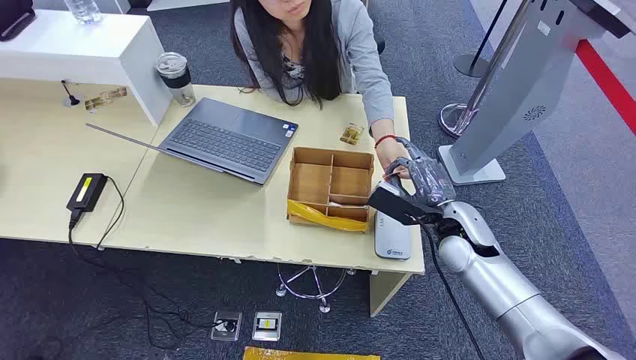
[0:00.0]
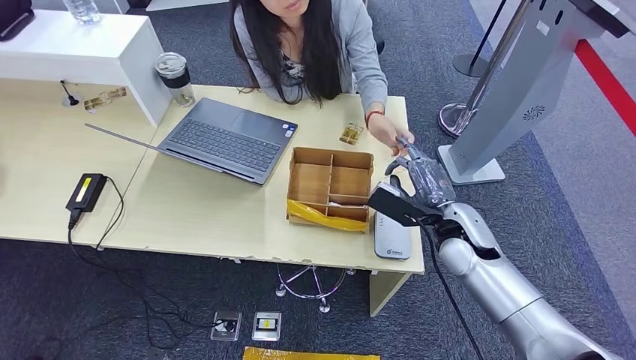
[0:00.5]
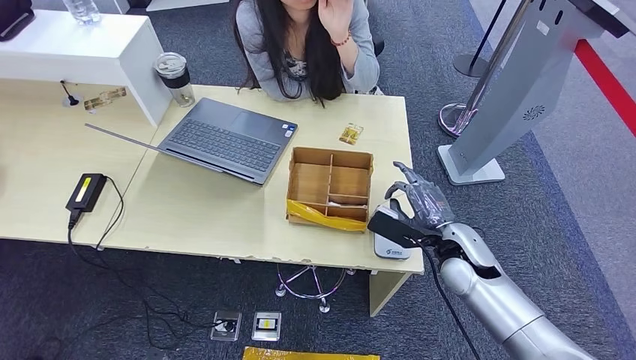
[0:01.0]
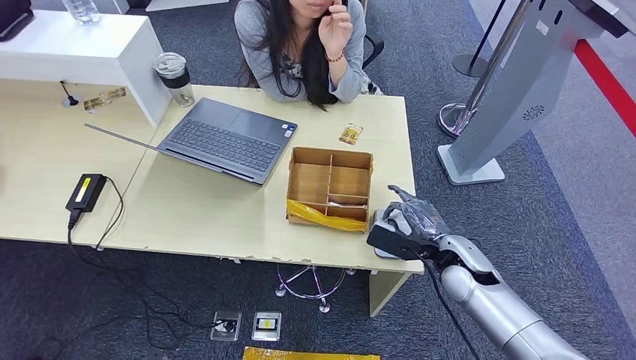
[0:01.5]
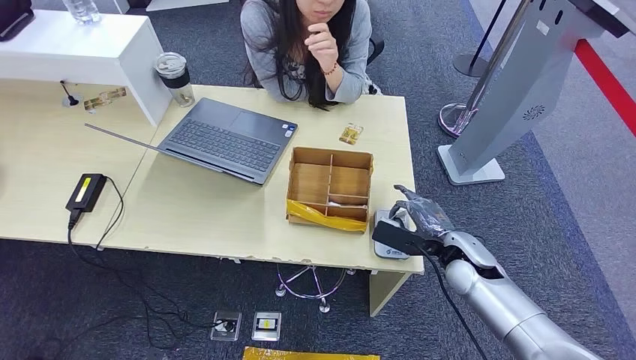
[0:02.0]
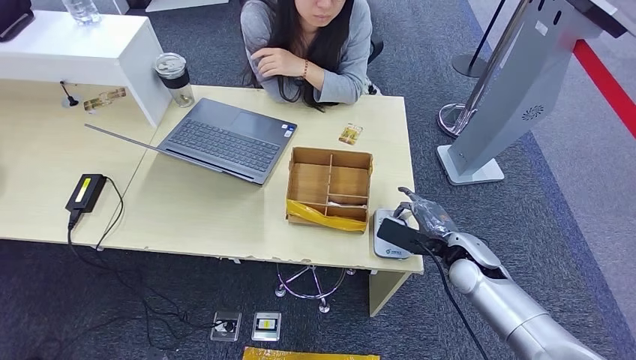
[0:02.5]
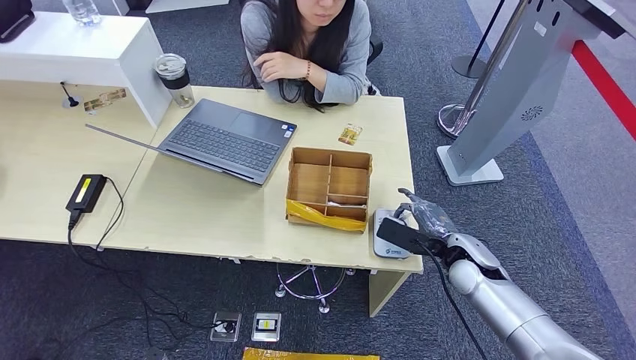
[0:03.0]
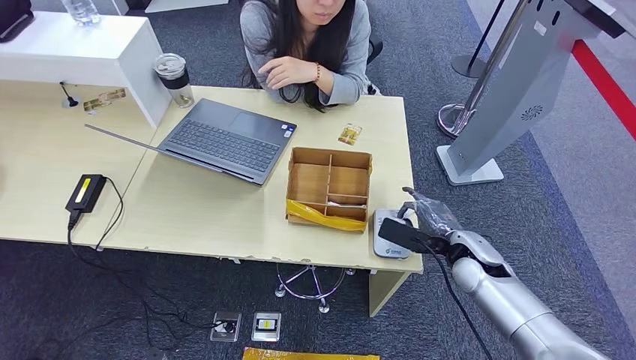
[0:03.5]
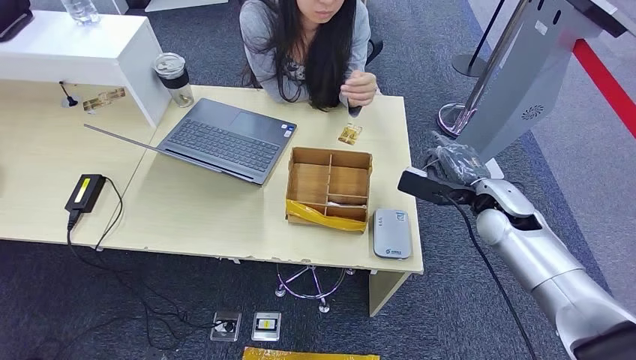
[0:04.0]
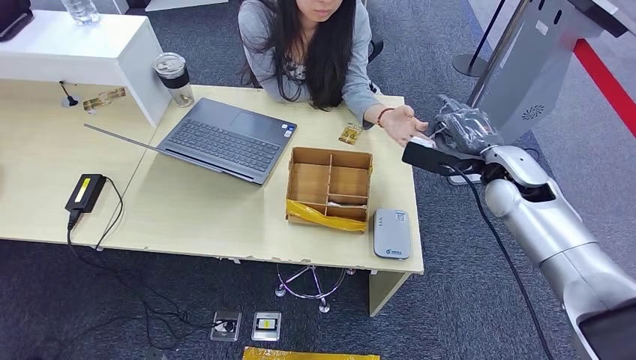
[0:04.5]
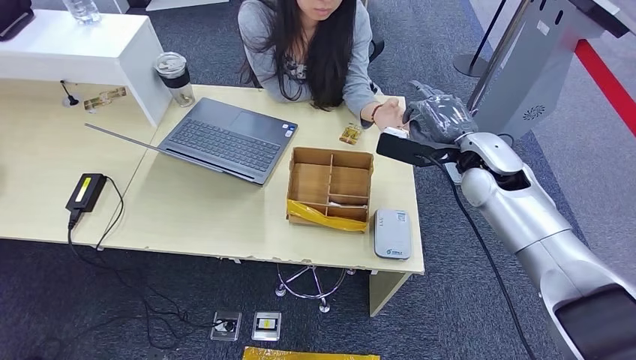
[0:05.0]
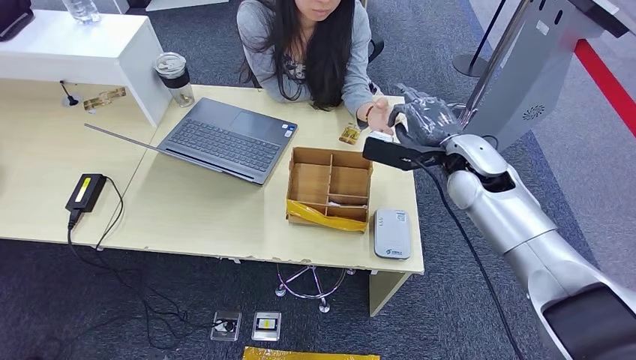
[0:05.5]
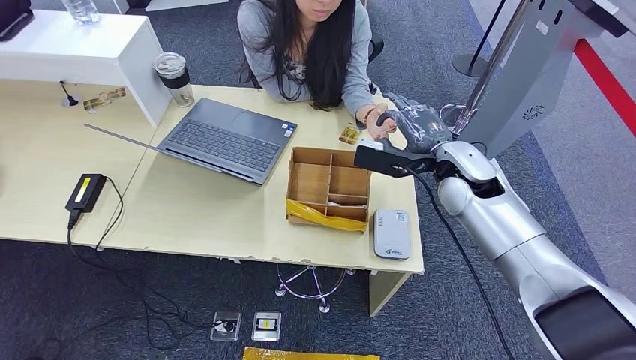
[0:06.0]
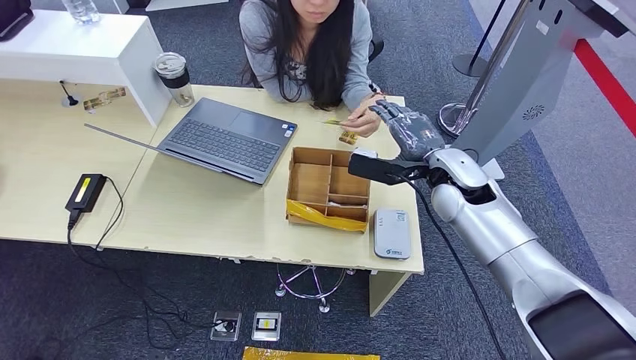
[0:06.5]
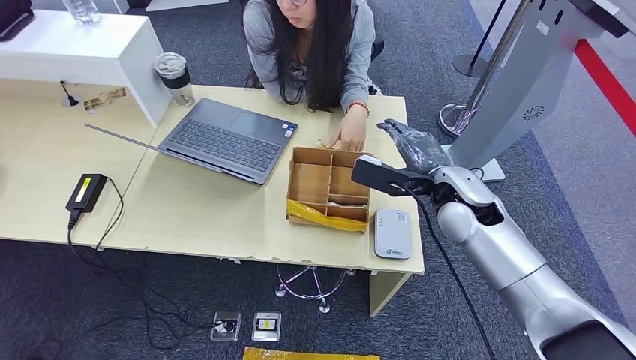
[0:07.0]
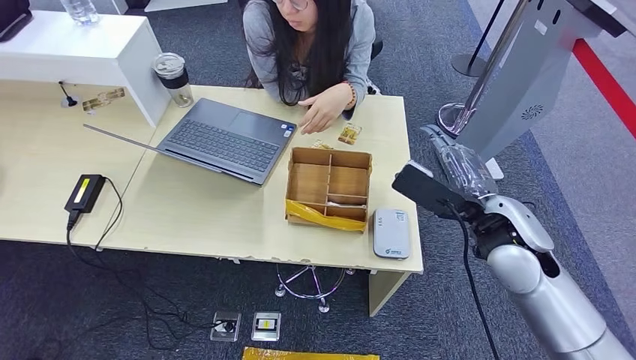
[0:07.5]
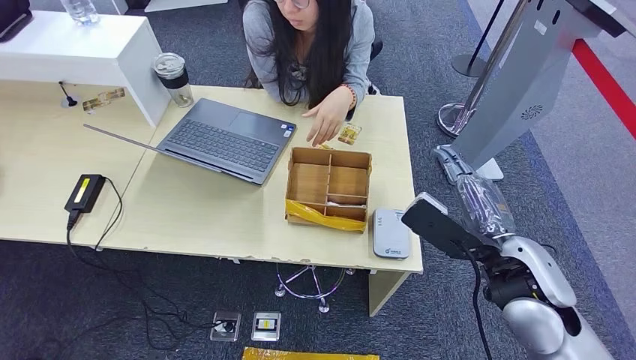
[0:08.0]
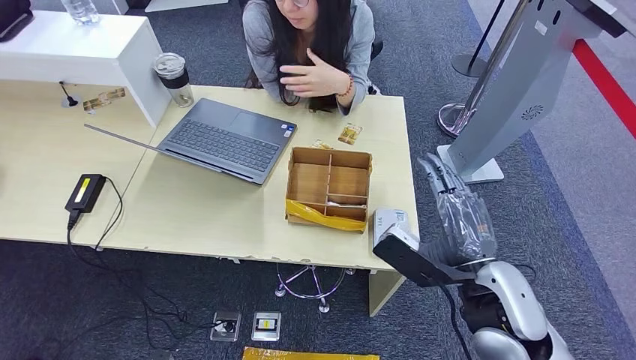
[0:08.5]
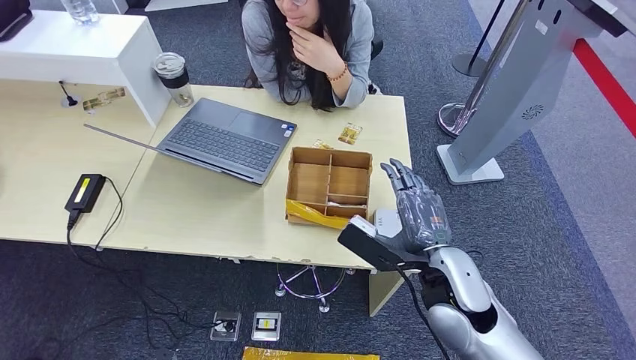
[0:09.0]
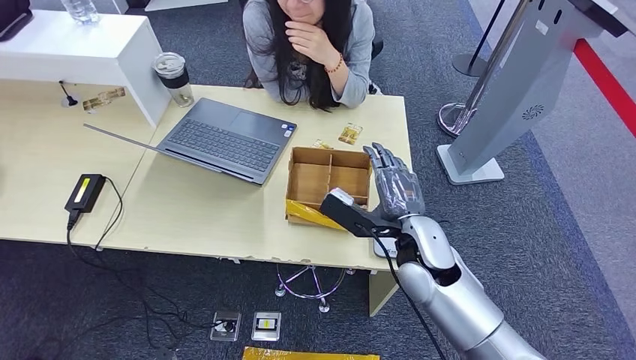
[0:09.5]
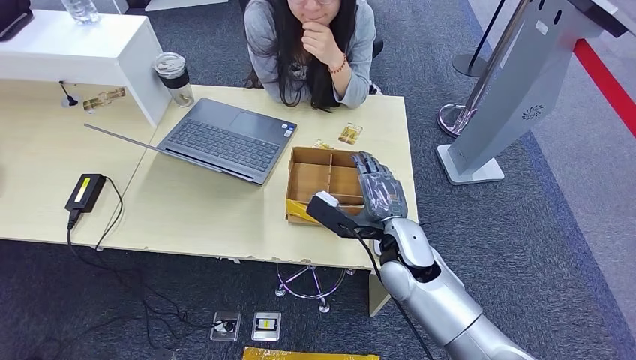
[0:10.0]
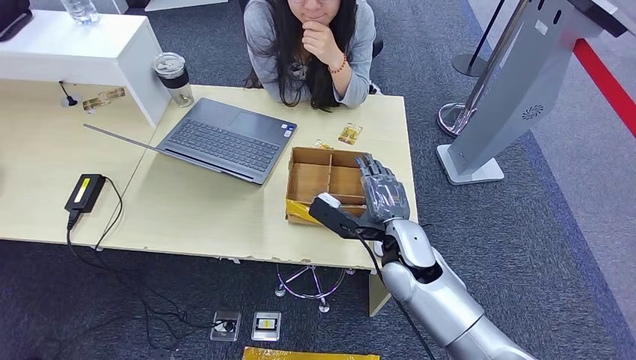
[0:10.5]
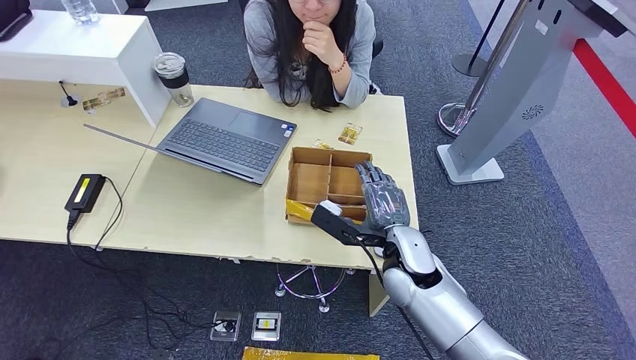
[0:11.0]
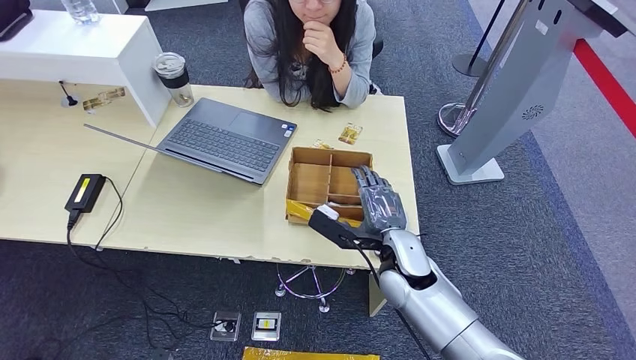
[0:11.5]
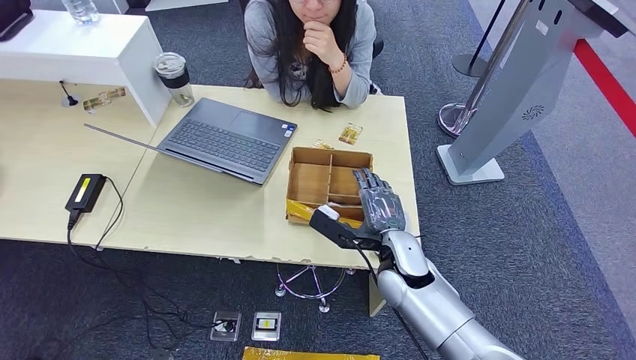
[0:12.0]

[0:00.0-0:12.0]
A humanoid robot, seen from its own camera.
Step, 0.0 to 0.5 s: Take the ID card from the person's hand.
Step, 1.5 to 3.0 s: Place the ID card on the card reader.
Step, 4.0 to 6.0 s: Hand the ID card to the person.
2.0 to 4.0 s: The right hand shifts about 10 cm upward and forward.
4.0 to 6.0 s: The right hand goes some 10 cm to the left and upward.
6.0 to 8.0 s: The right hand moves backward, roughly 15 cm.
8.0 to 10.0 s: The right hand shifts roughly 20 cm to the left, downward and forward.
10.0 to 12.0 s: The hands stay close to where they were, moving slightly.

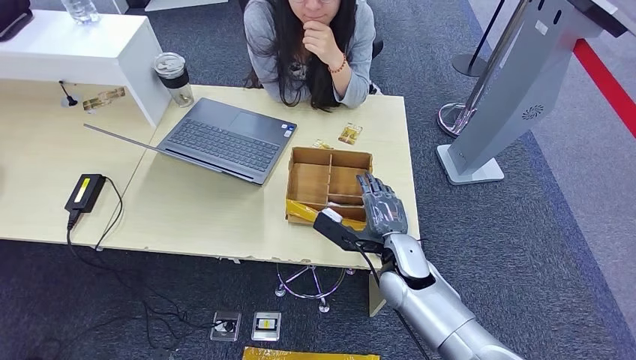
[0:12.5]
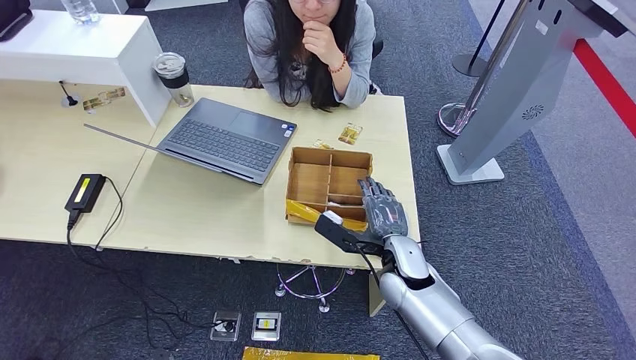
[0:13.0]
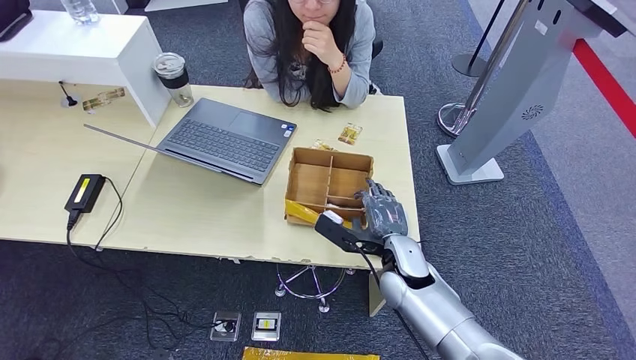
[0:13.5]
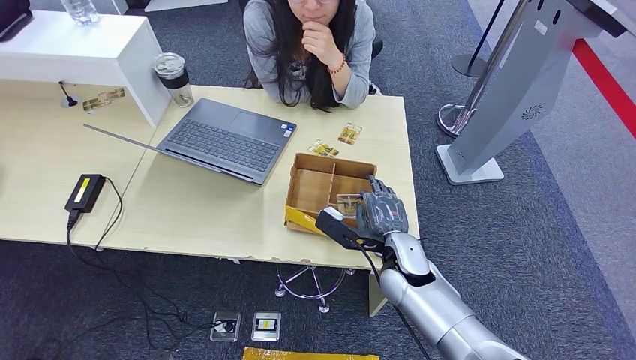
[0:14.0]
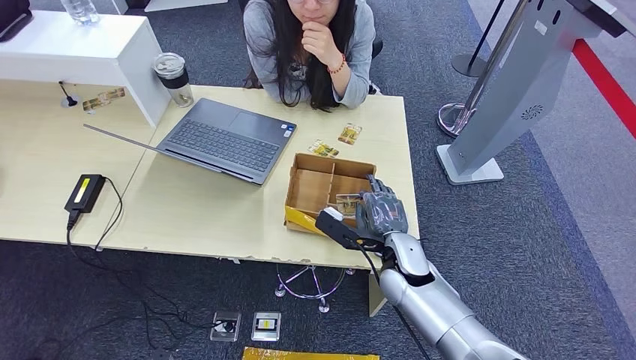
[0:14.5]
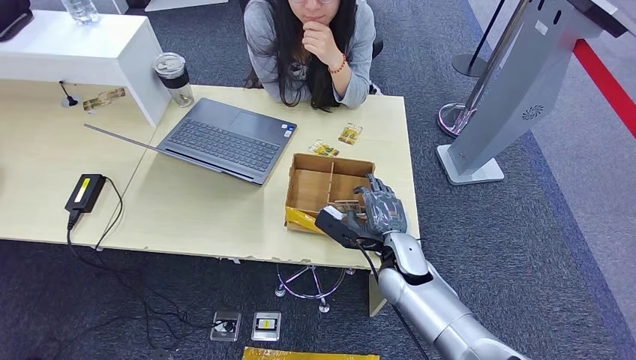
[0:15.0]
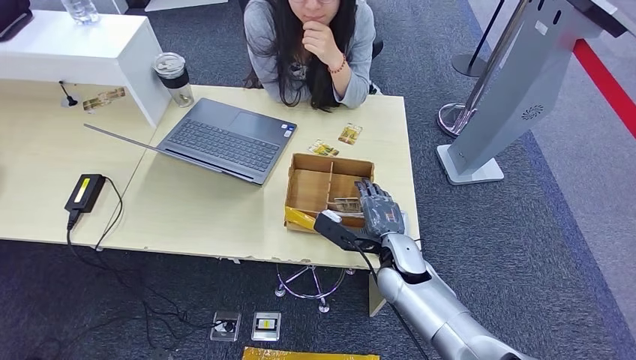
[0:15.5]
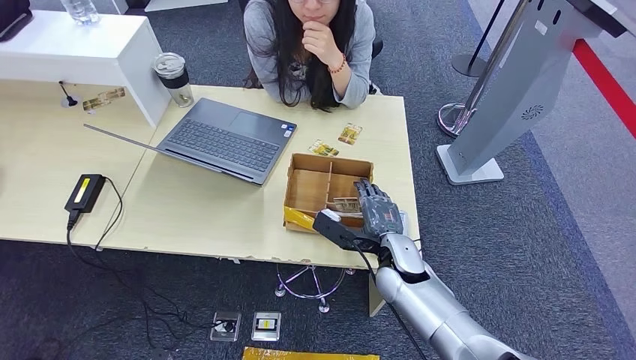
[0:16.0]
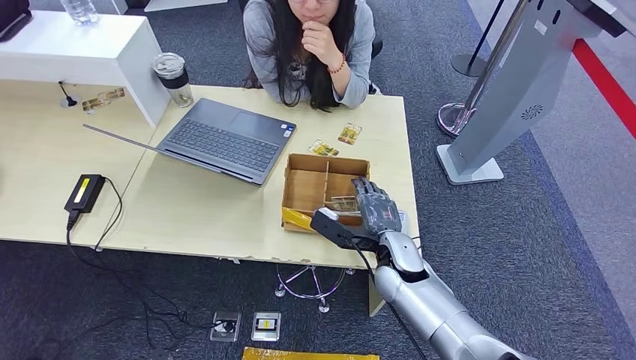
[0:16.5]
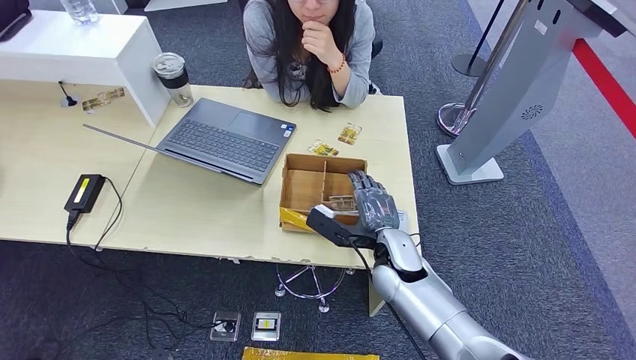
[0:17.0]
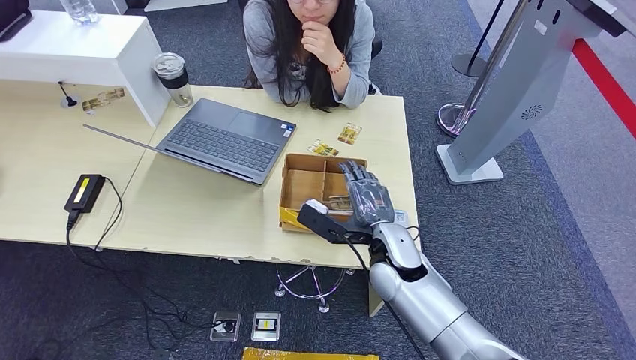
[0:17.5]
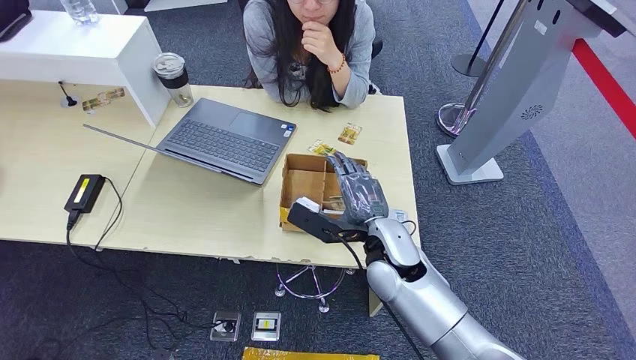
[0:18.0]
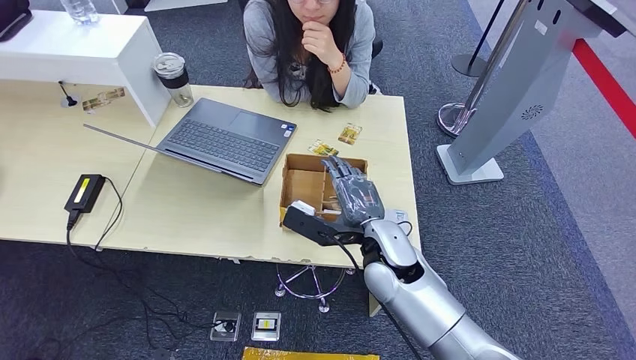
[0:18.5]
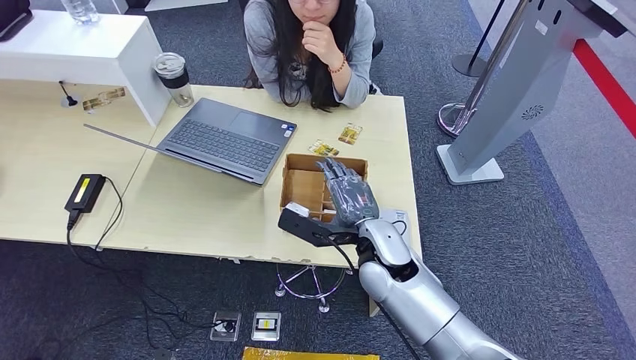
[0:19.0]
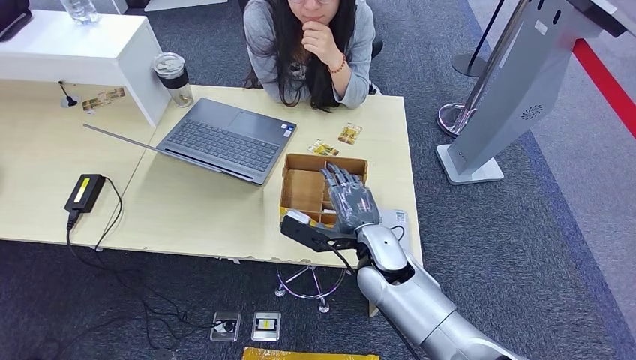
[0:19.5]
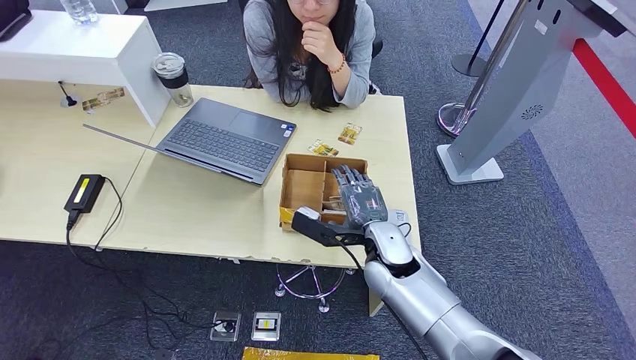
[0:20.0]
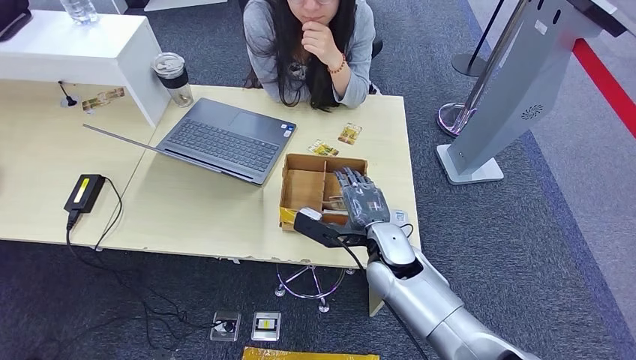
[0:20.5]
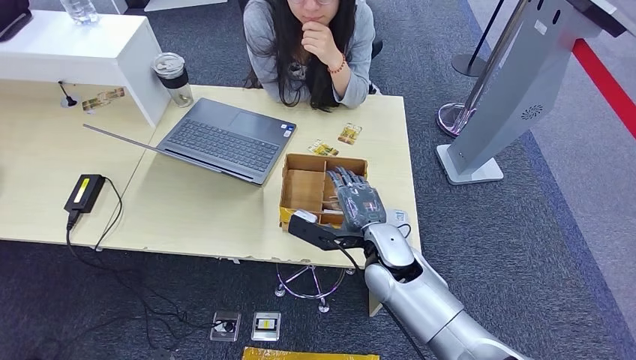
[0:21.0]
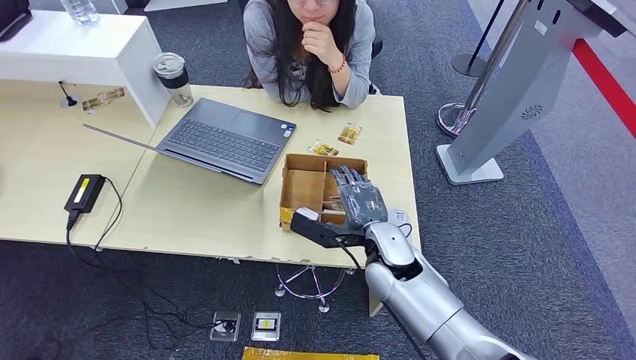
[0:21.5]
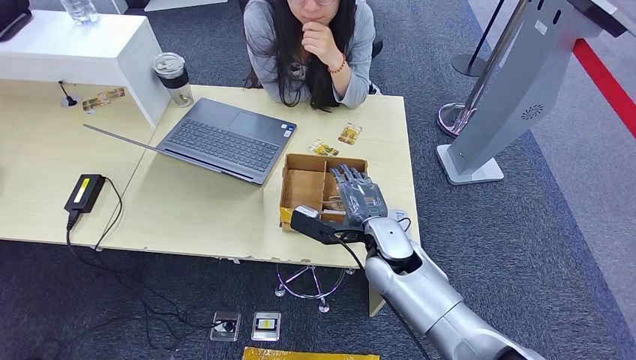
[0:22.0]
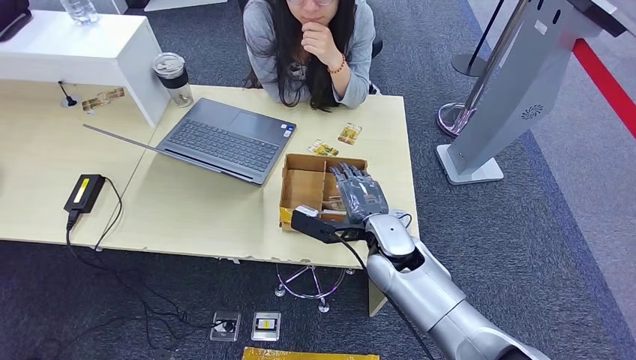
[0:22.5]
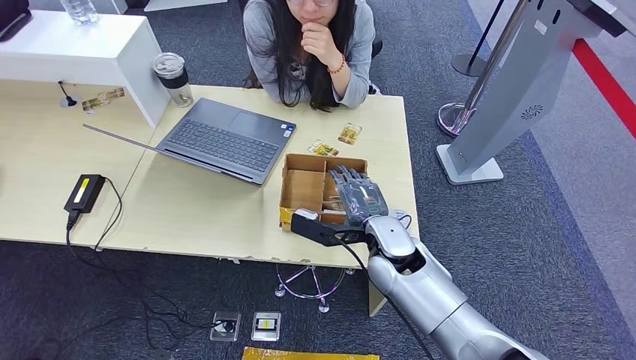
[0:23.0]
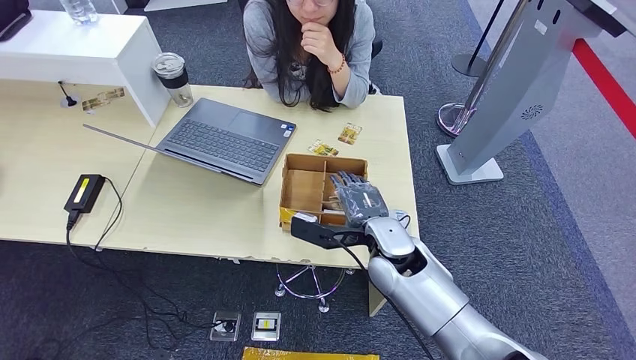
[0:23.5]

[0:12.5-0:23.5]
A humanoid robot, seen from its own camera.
12.5 to 14.5 s: Neither hand changes place.
14.5 to 16.0 s: Neither hand changes place.
16.0 to 18.0 s: The right hand heads upward, covering some 5 cm.
18.0 to 20.0 s: The hands move only a little.
20.0 to 21.5 s: Both hands stay put.
21.5 to 23.5 s: There are only small adjustments of the hands.
